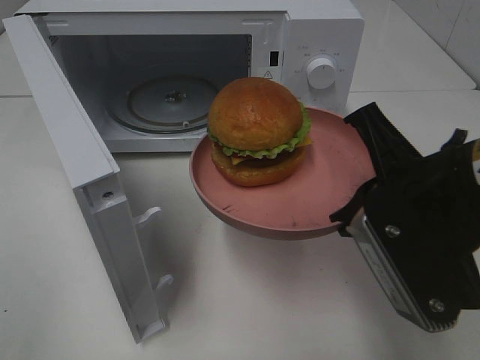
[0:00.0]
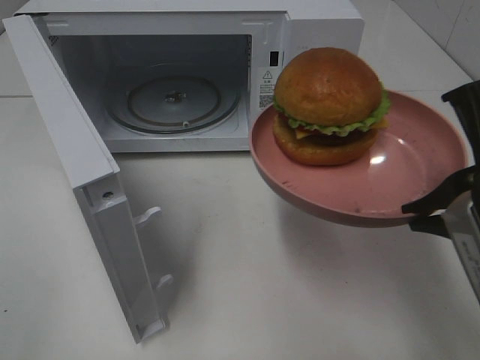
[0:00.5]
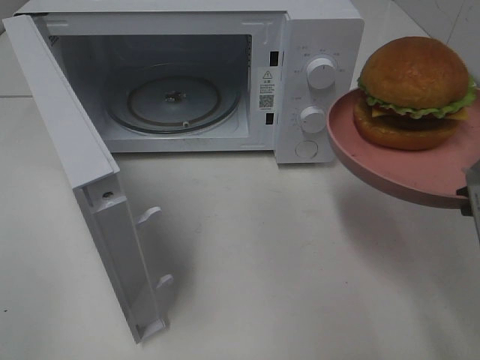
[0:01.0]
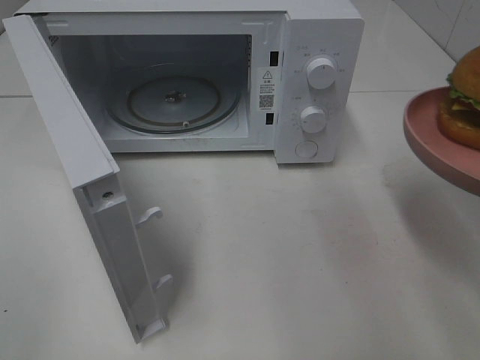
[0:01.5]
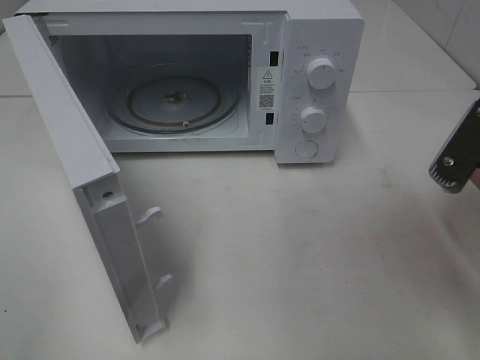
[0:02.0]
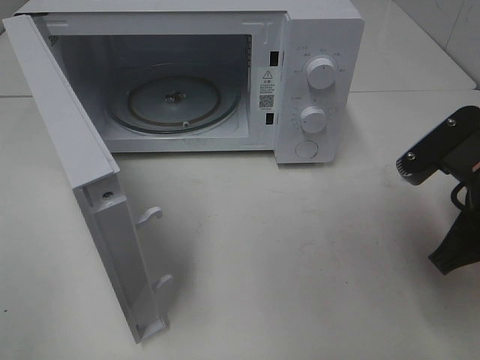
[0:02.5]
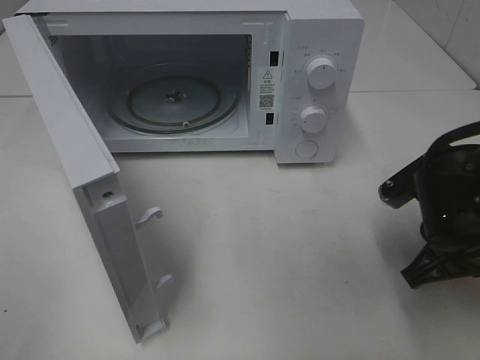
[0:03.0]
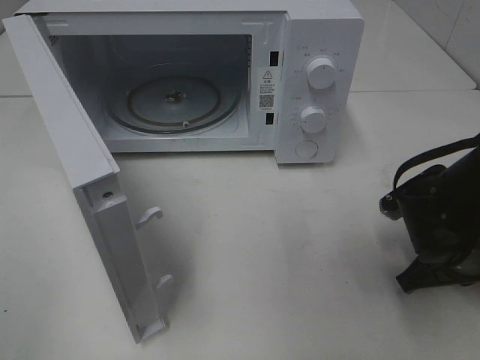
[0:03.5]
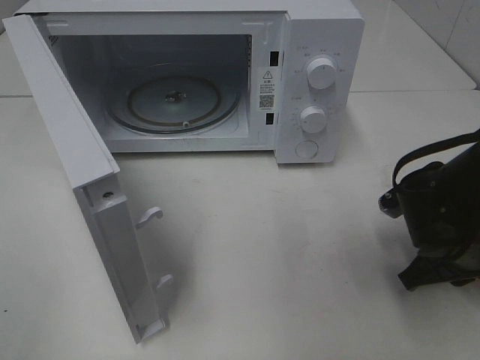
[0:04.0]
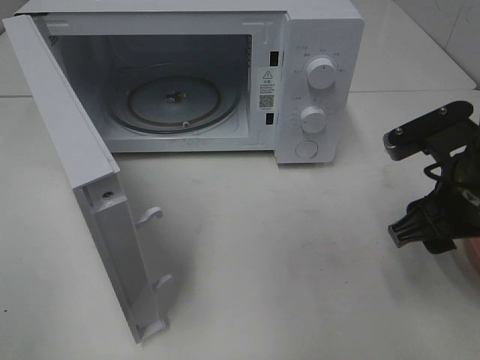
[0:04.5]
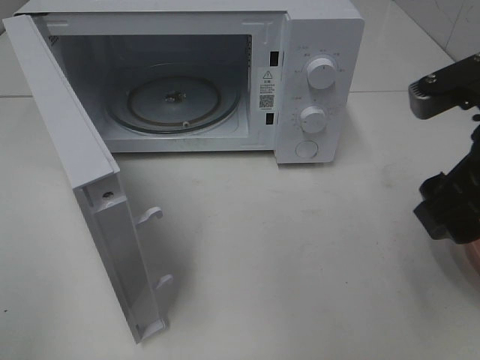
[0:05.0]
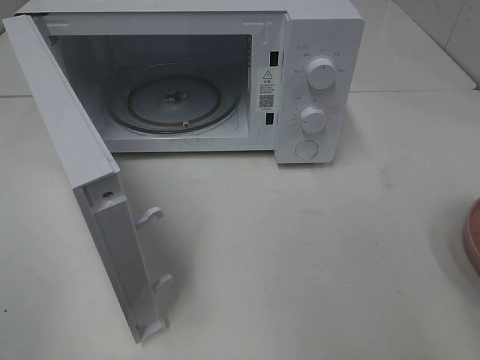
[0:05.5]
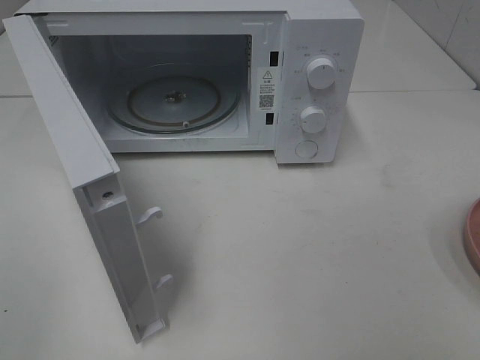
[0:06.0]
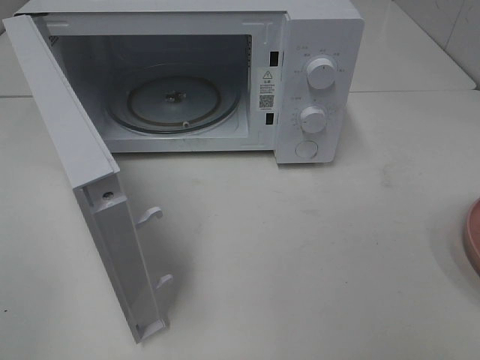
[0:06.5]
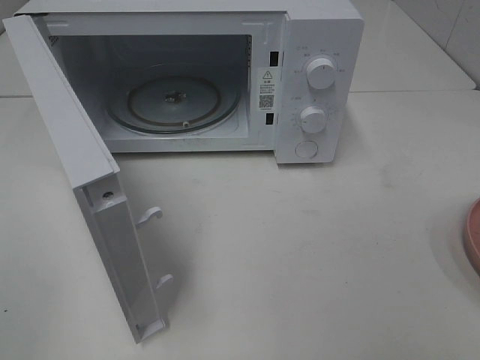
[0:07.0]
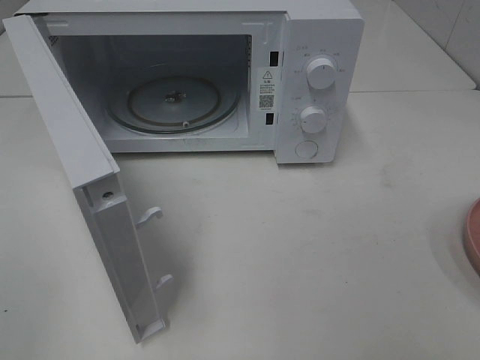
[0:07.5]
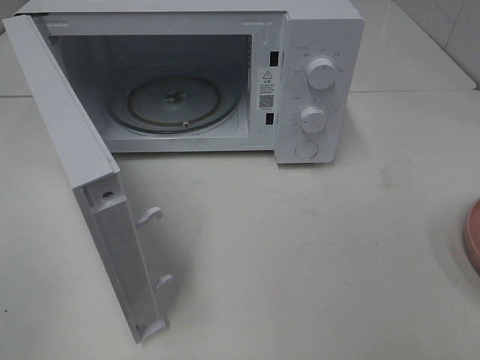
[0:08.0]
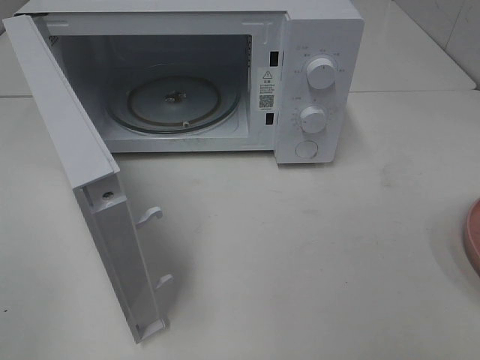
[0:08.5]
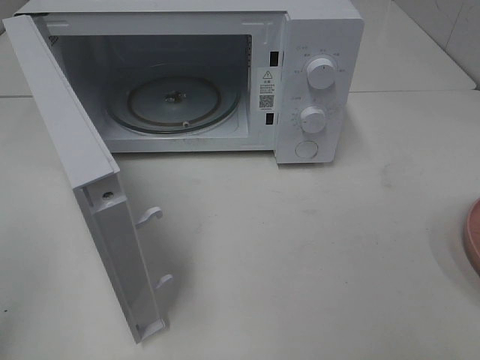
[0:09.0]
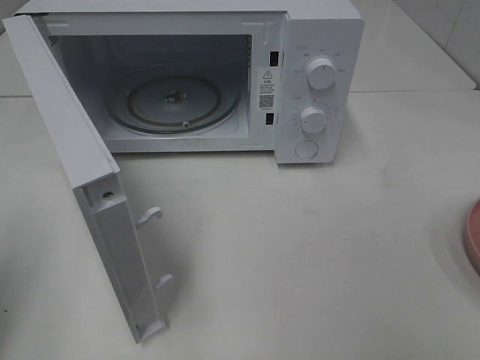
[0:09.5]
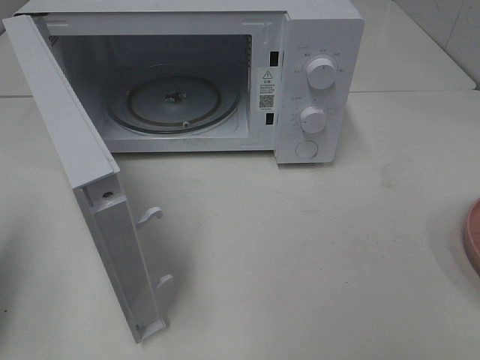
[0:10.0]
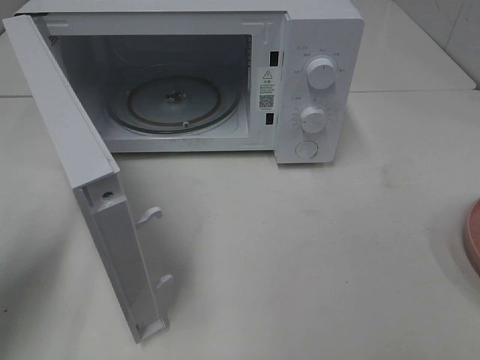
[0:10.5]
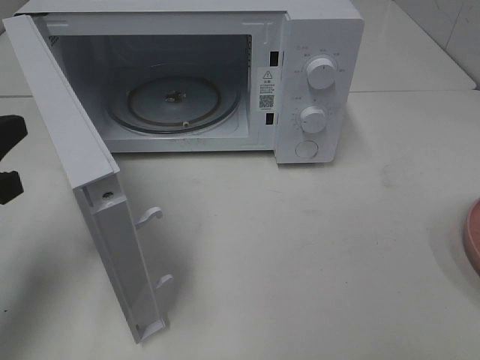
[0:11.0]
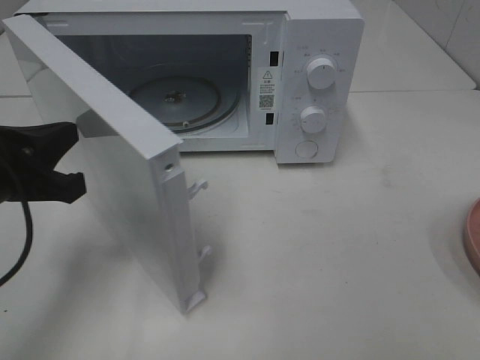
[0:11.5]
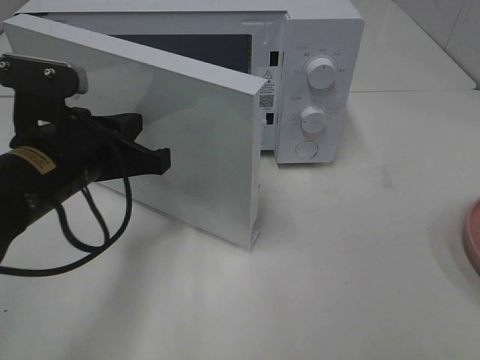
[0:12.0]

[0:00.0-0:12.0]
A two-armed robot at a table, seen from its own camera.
Task of the whole recording: Heat the burger.
Step, 0:00.0 to 0:04.5: Right hand: place the plate on the table.
0:00.0 to 0:02.0: The right gripper travels to the right by roughly 5 cm.
0:02.0 to 0:04.0: The right gripper heads downward and forward, covering some 15 cm.
0:04.0 to 0:06.0: The right gripper shifts roughly 25 cm upward and backward, and opens.
0:08.0 to 0:10.0: The left gripper goes about 15 cm forward, and closes.
0:10.0 to 0:12.0: The left gripper moves to the right and forward, roughly 20 cm.

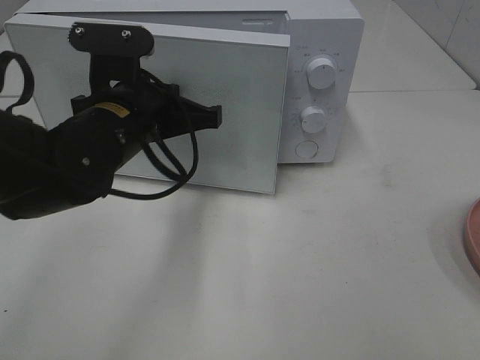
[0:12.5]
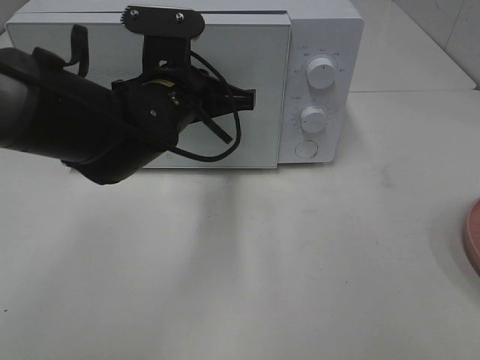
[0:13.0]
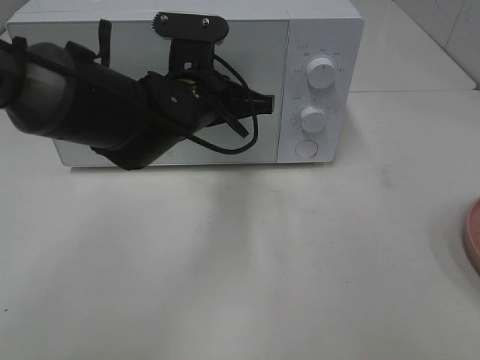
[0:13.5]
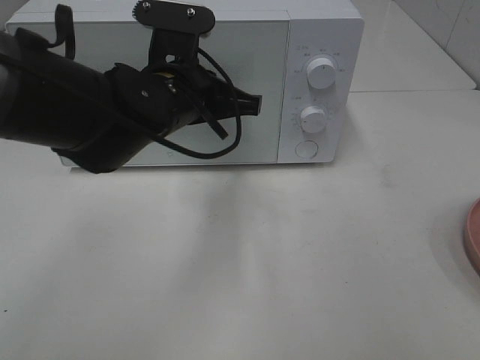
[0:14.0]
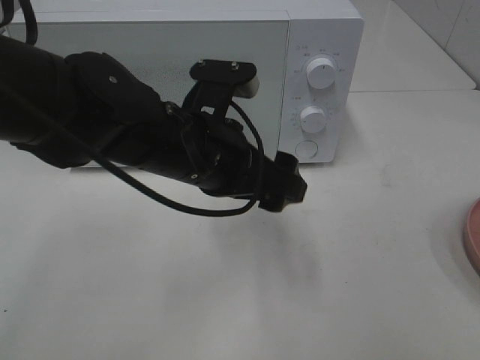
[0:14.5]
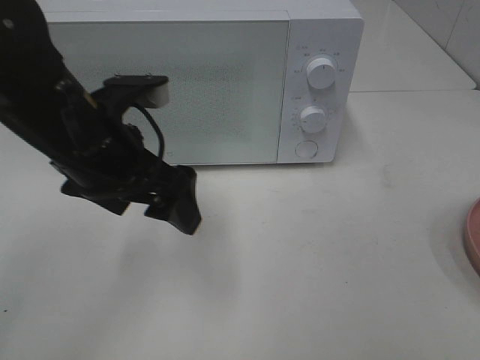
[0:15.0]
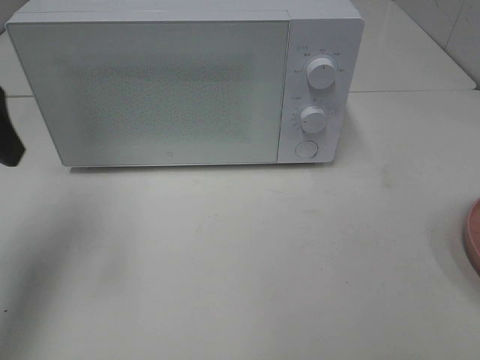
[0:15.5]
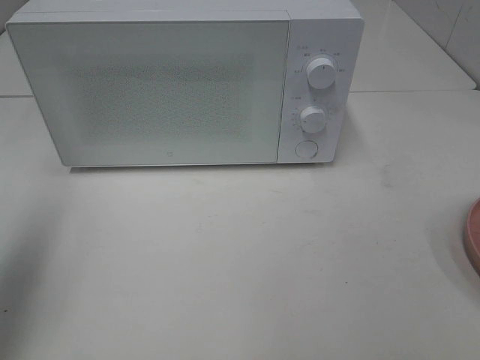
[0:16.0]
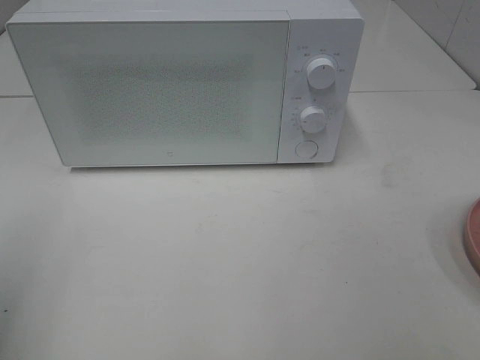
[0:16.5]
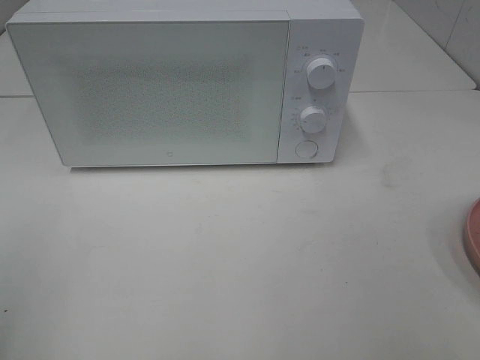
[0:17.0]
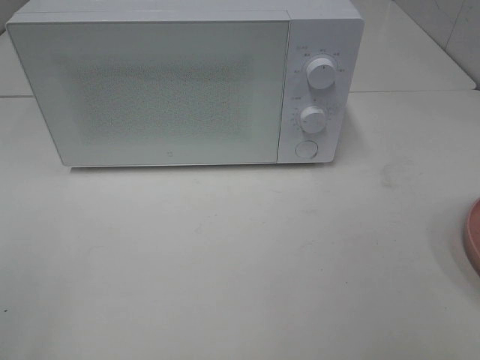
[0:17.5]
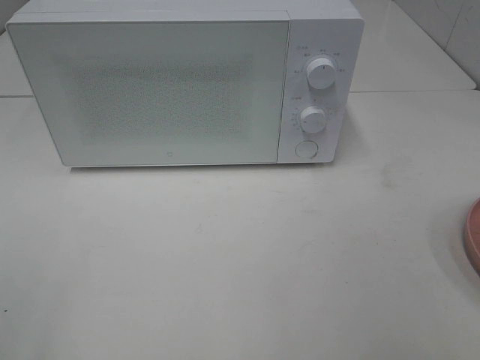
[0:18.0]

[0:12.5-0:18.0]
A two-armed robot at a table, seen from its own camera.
Task of the whole recording: Heat the burger.
0:12.5 to 0:14.5: The left gripper goes about 5 cm to the right, and opens up.
0:14.5 to 0:16.0: The left gripper goes approximately 30 cm to the left and upward.
0:16.0 to 0:18.0: The left gripper goes some 20 cm backward.

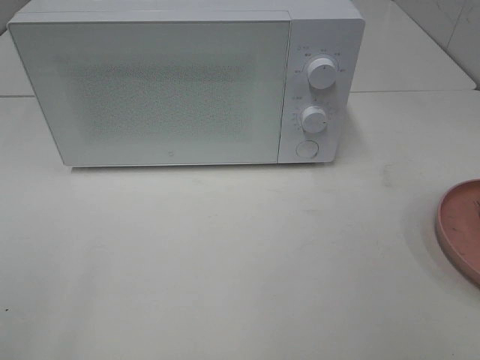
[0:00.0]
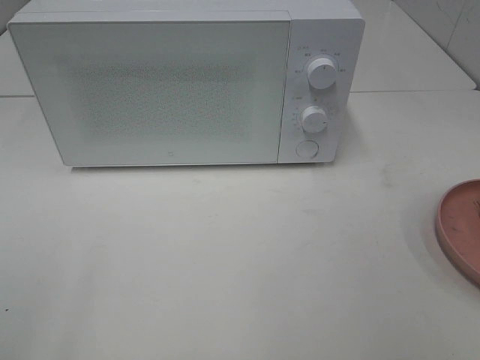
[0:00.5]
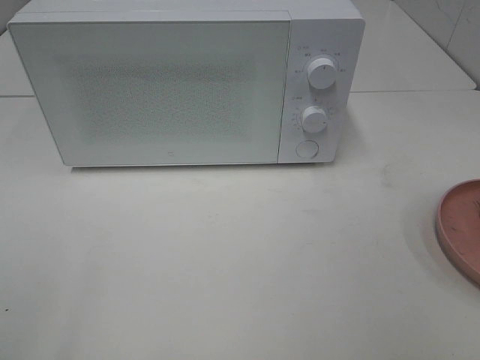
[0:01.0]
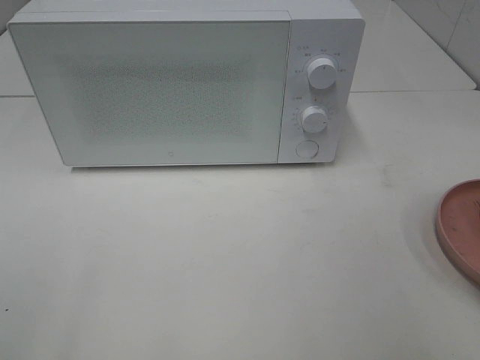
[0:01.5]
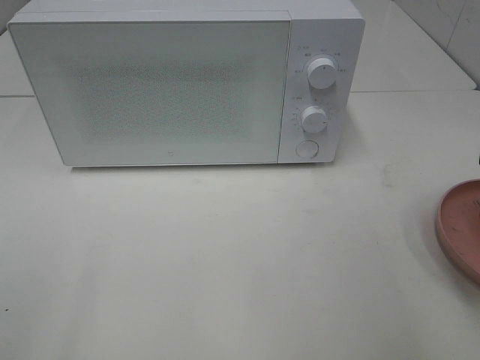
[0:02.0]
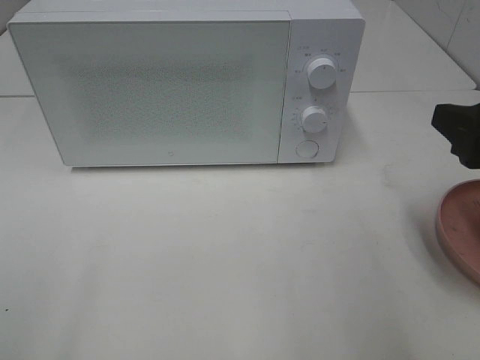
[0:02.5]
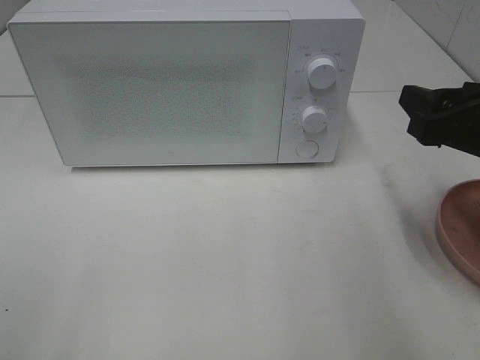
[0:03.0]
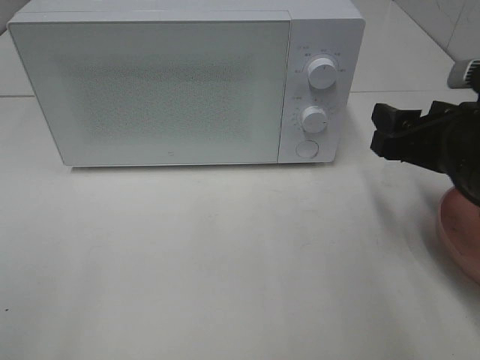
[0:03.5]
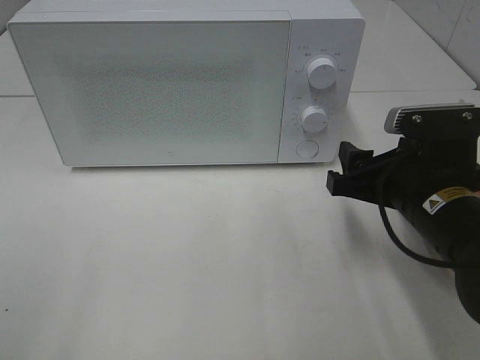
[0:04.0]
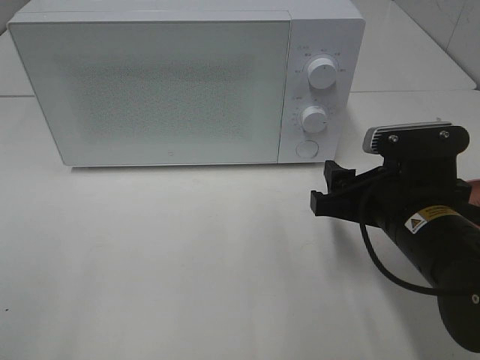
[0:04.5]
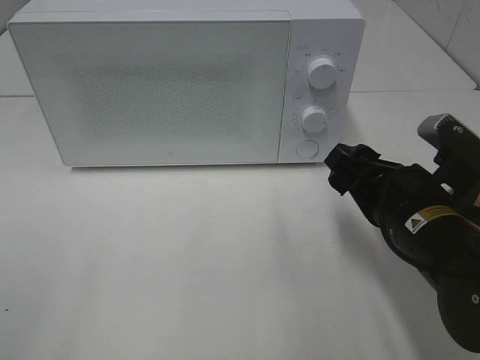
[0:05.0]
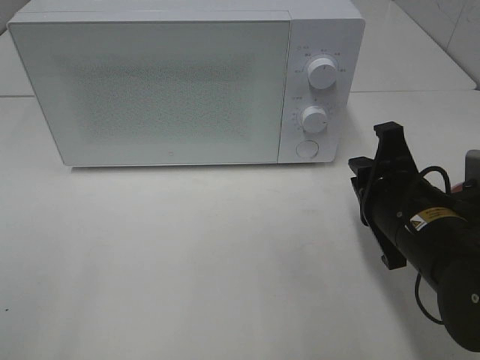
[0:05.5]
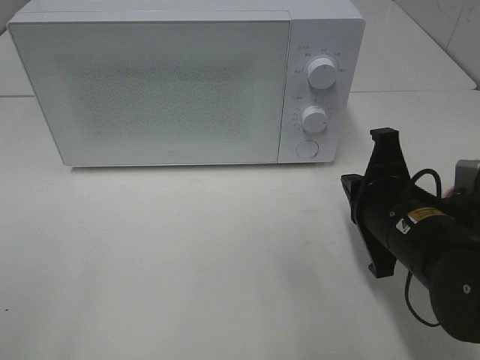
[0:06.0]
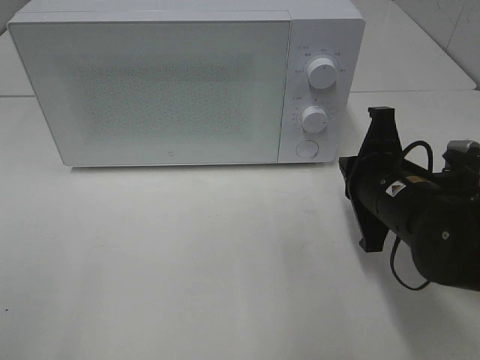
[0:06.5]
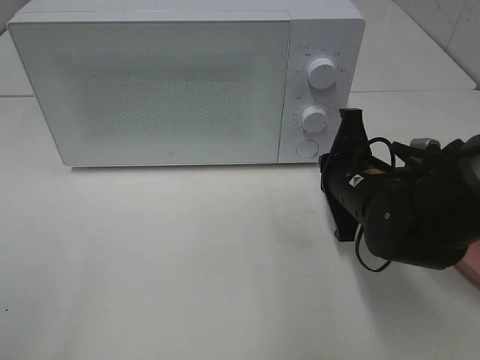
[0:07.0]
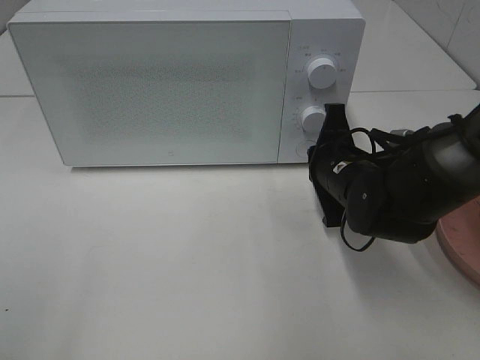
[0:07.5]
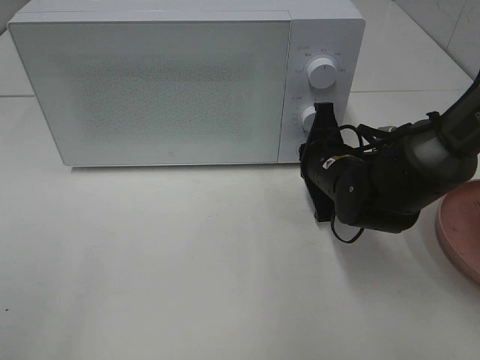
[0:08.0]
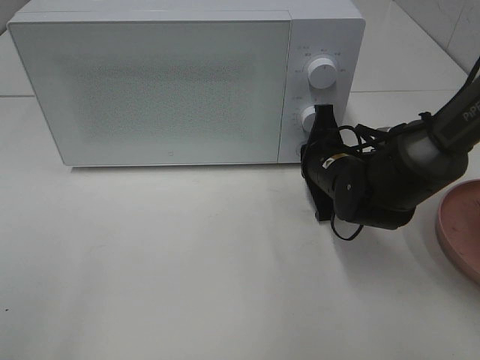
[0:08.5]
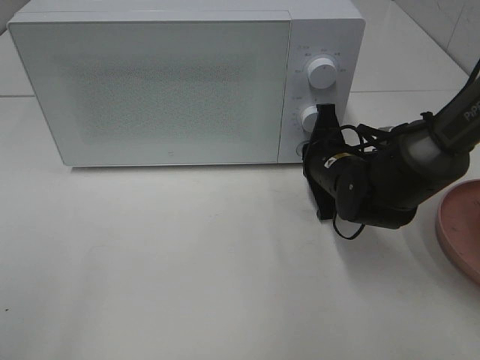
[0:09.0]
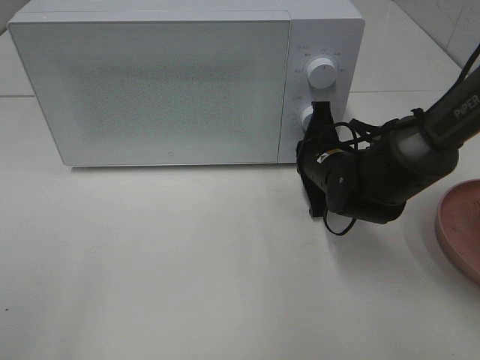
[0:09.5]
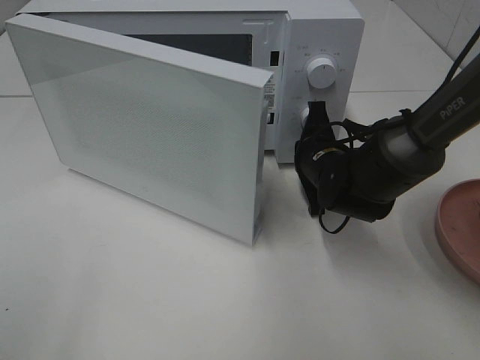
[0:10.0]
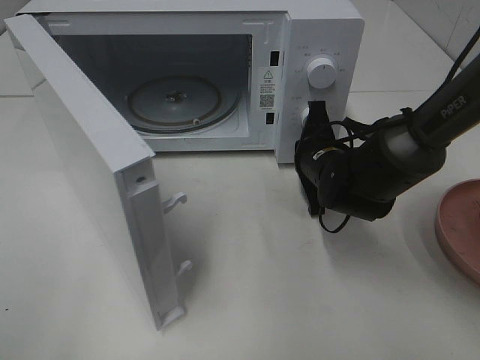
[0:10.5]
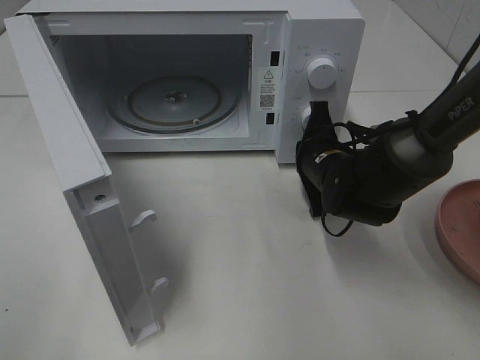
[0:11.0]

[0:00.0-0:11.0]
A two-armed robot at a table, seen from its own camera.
Task of the whole recording: Heat the burger.
0:02.0 to 0:03.5: The right gripper moves forward and downward, approximately 15 cm.
0:03.5 to 0:05.5: The right gripper moves to the left, some 5 cm, and closes.
0:05.5 to 0:07.5: The right gripper travels forward by some 10 cm.
0:07.5 to 0:09.0: The grippers stay close to where they were, moving slightly.
